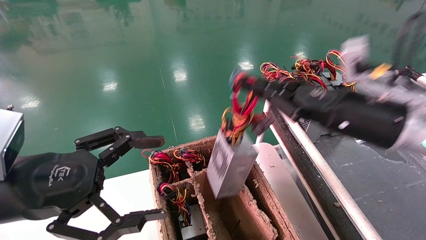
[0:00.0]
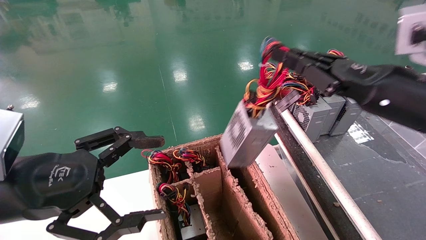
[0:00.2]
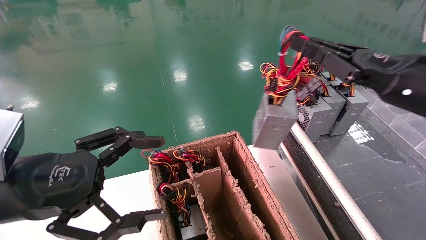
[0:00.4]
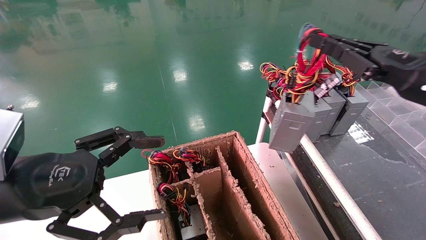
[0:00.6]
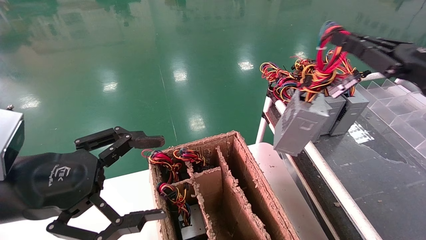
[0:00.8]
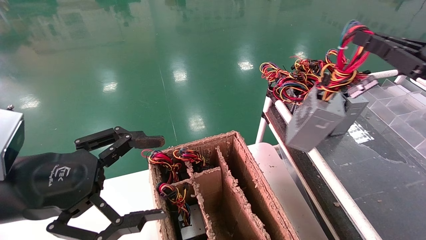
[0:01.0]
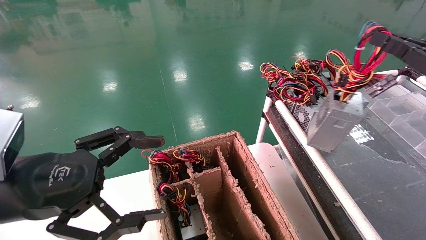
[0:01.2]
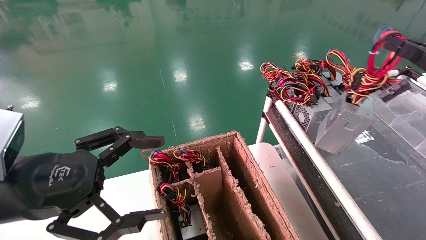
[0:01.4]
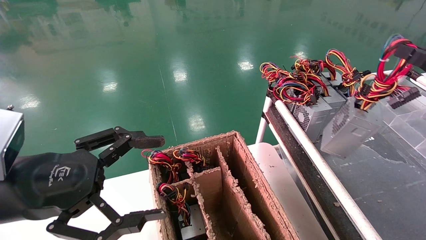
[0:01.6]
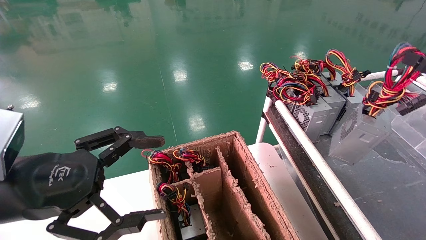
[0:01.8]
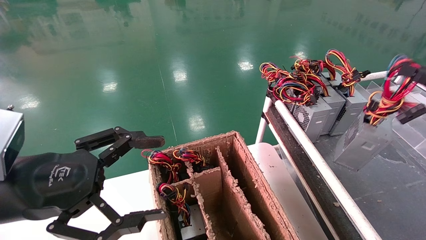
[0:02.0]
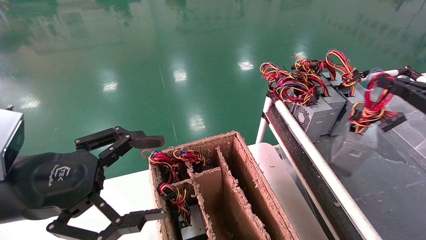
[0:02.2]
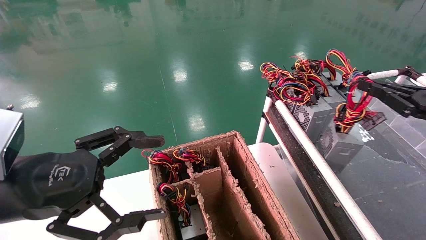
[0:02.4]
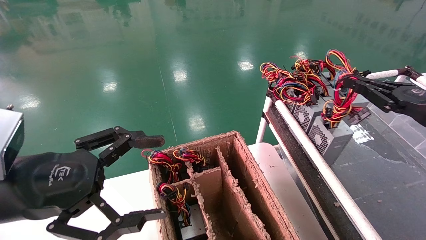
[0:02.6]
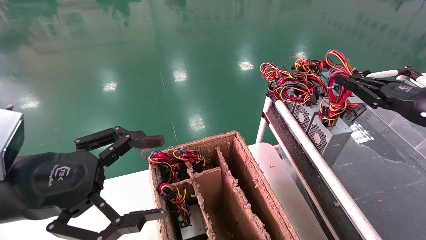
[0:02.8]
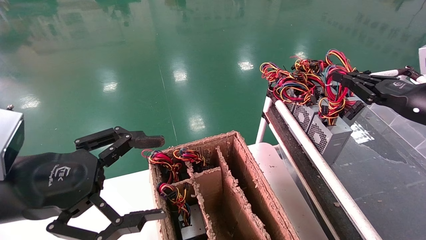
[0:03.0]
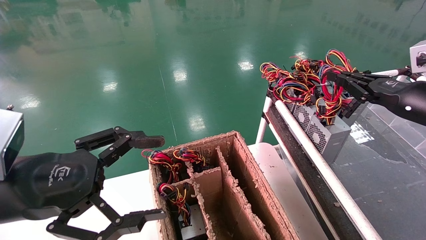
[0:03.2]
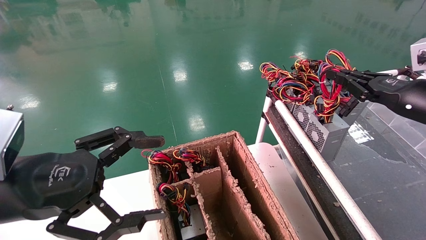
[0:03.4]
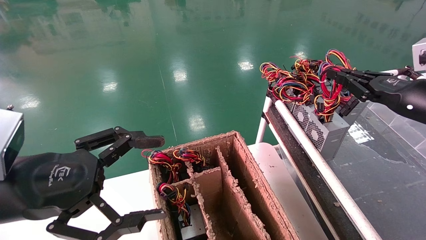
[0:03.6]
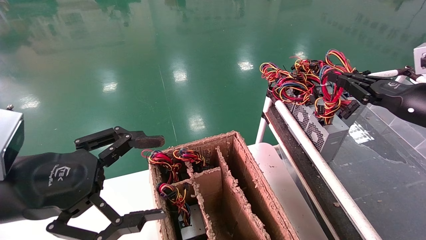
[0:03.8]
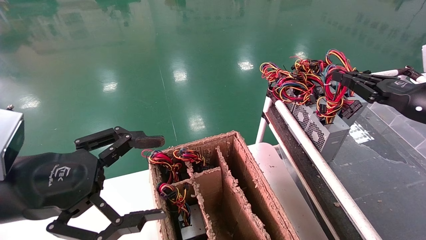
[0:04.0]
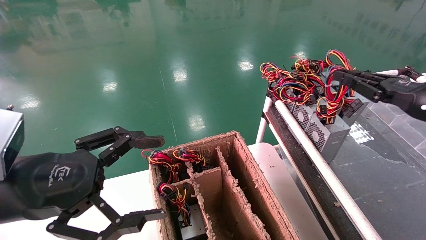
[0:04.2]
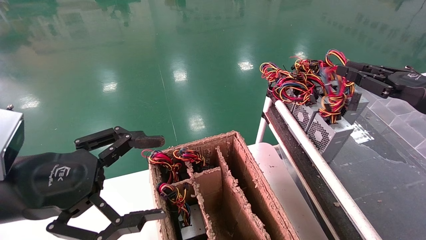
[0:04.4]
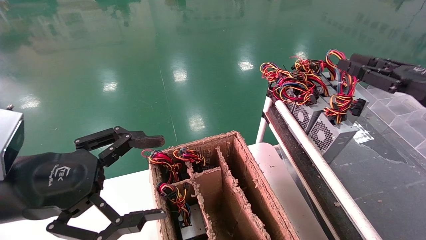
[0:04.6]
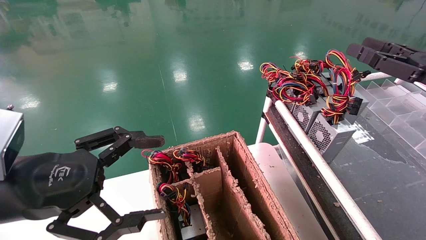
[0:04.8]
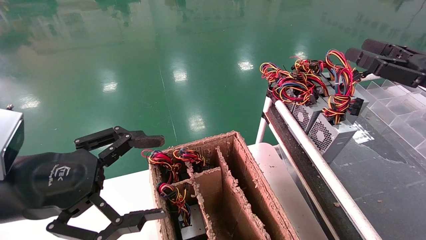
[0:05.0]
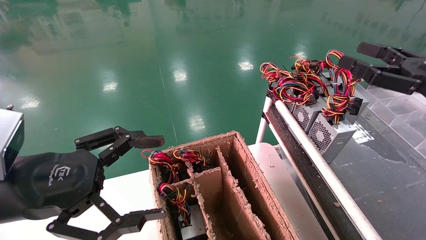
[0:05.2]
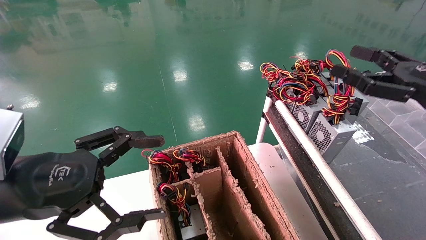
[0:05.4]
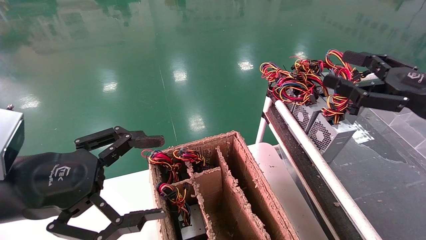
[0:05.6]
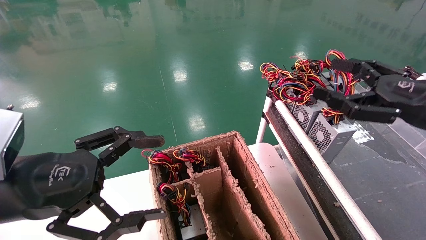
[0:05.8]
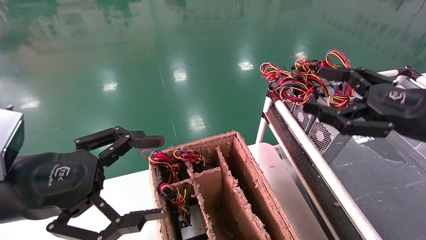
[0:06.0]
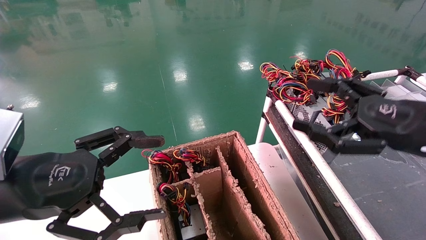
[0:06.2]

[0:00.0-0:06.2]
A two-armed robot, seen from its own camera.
Step, 0:00.0 to 0:04.0: Place the power supply on the operating table.
0:00.0 to 0:01.6: The right gripper goes approximately 20 cm to the right.
0:01.6 to 0:03.2: The right gripper heads forward and to the left, covering approximately 10 cm.
0:03.2 to 0:04.6: The grippers stay close to where they were, moving slightly.
0:04.6 to 0:06.2: The right gripper travels to the left and backward by approximately 10 cm, and opens up.
